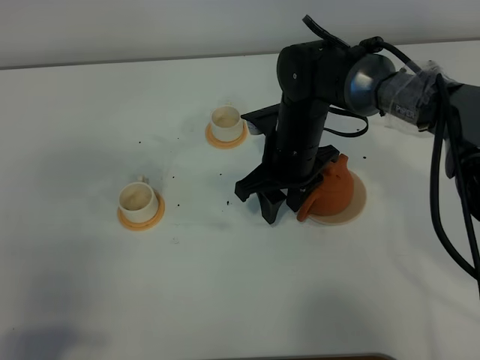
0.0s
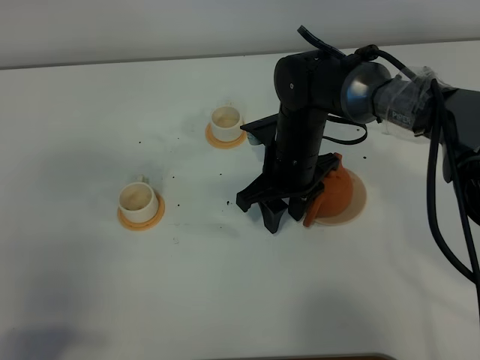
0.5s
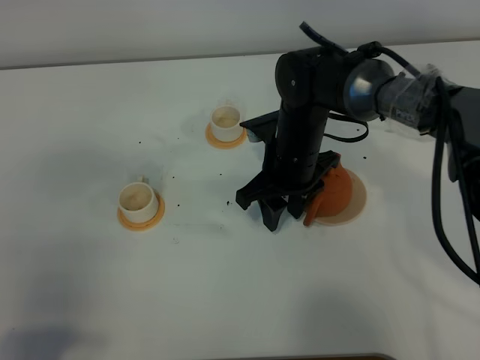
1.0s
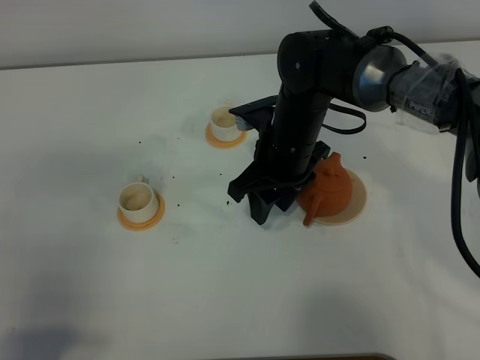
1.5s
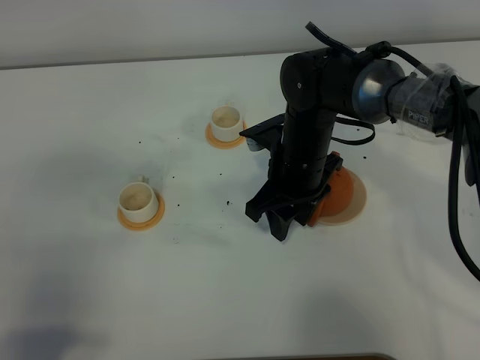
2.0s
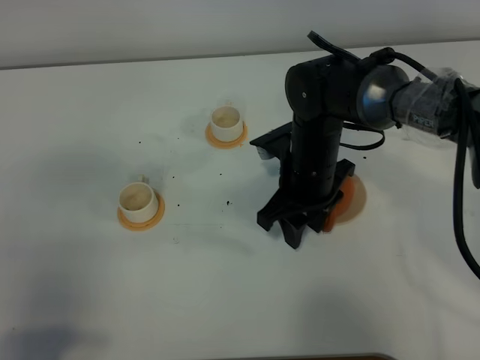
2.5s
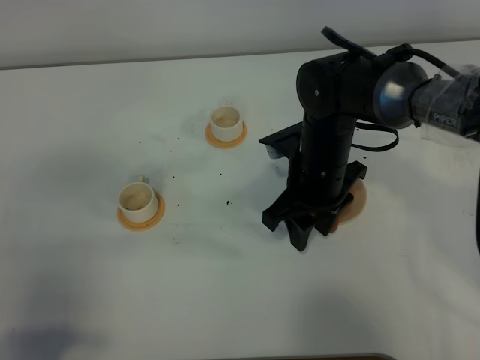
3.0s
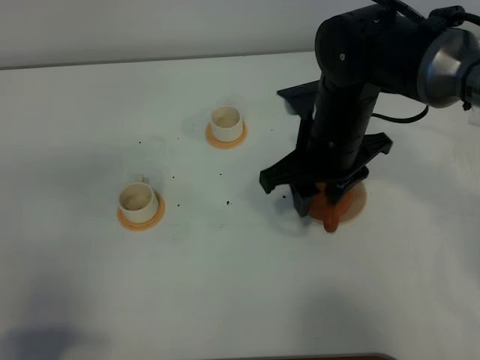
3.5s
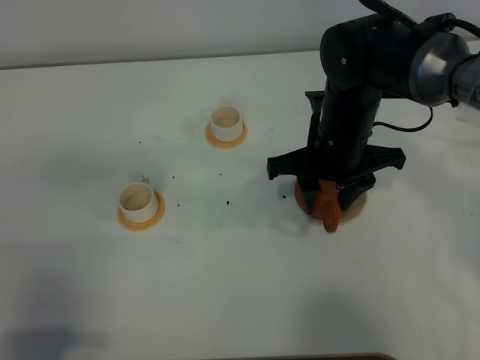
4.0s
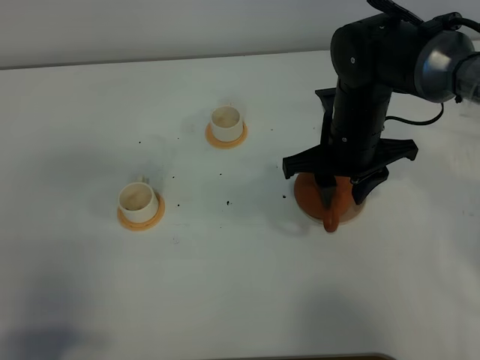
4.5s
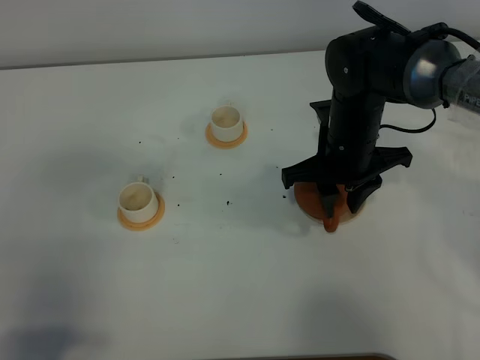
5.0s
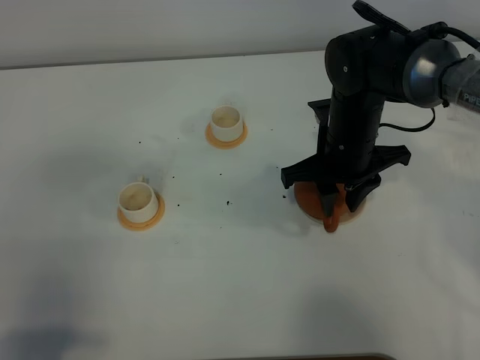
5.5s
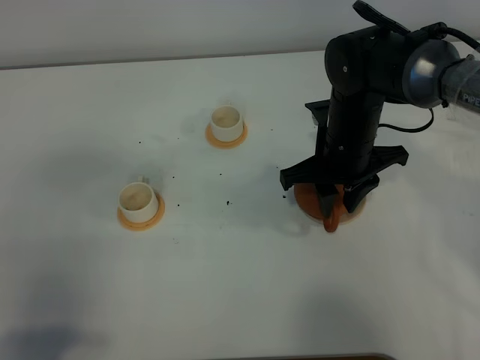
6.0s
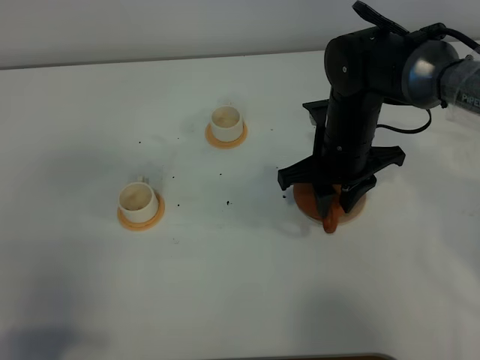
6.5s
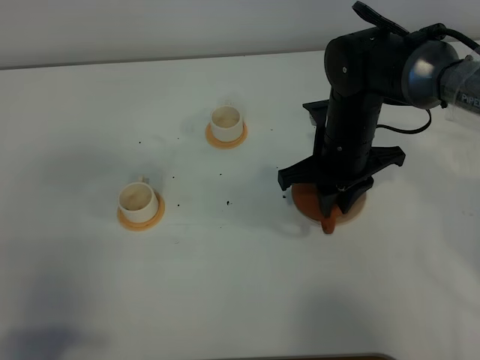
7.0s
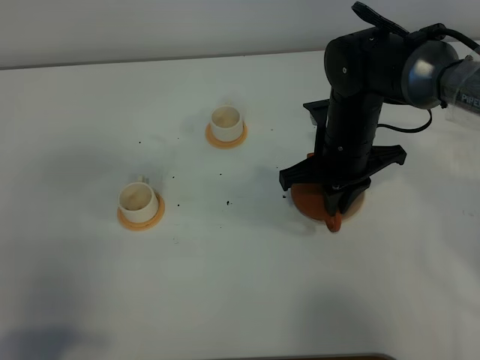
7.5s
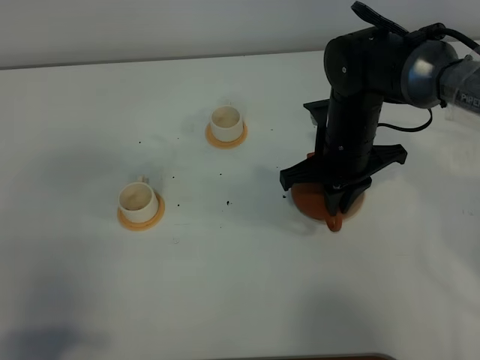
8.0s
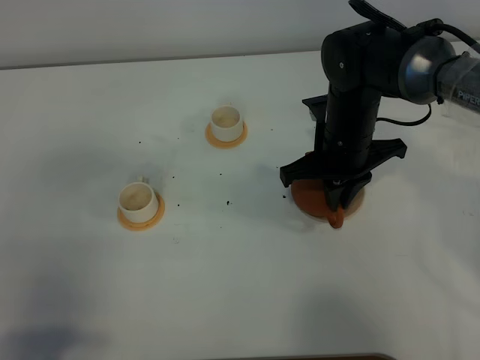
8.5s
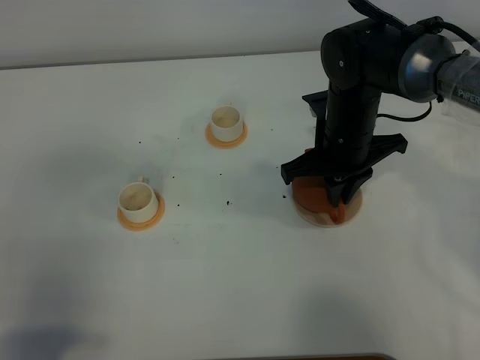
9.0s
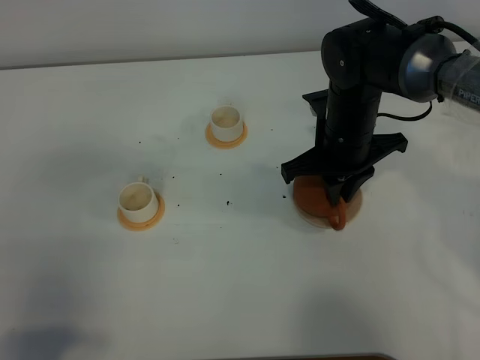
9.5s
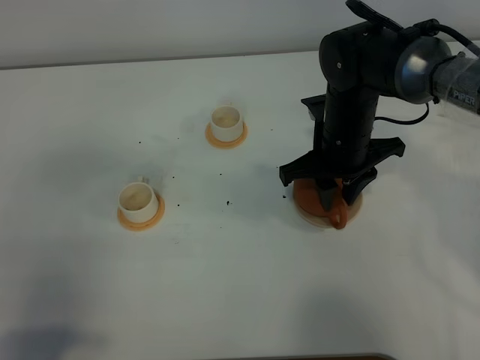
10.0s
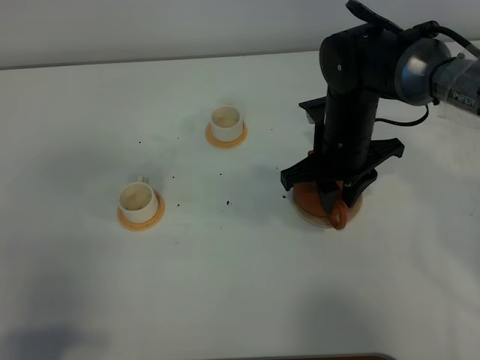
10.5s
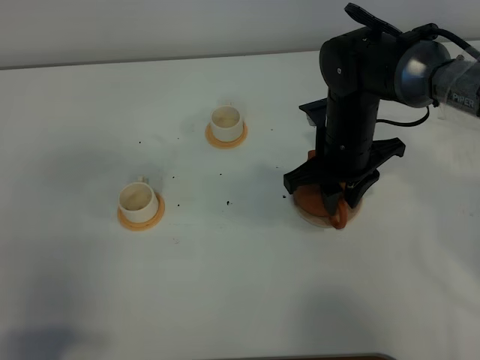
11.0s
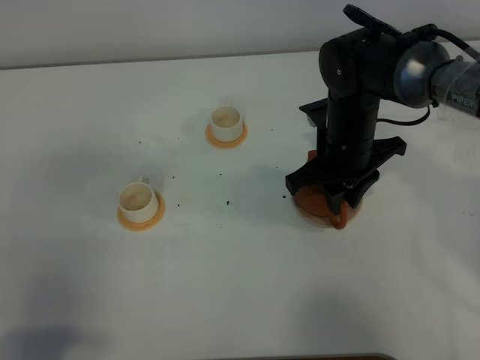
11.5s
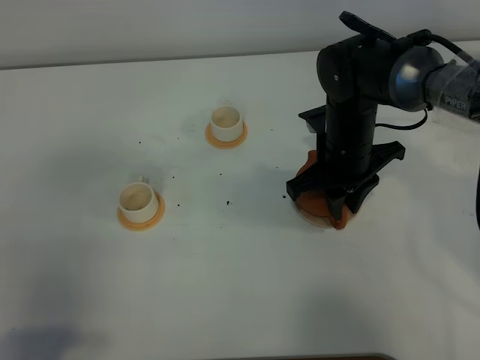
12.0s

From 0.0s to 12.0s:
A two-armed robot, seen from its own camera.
Task of the whole recording: grasp the brown teapot and pour the tea into the two white teacups one by one, put the brown teapot back in its original place.
From 0.0s to 2.0s: The grippers move only a little.
From 2.0s to 4.0s: The right gripper ends up some 5 cm from where it was.
From 4.0s to 6.0s: The grippers move only a little.
From 6.0s to 8.0s: The right gripper closes up.
From 8.0s to 10.0s: The right gripper opens its fingers.
From 10.0s to 12.0s: The grippers make only small movements.

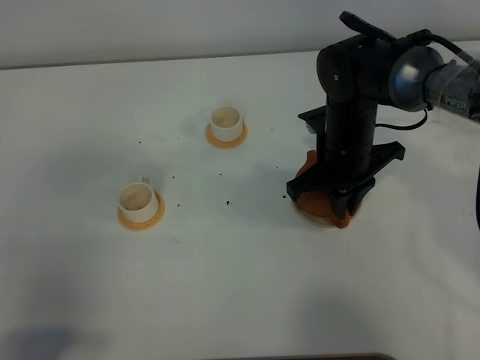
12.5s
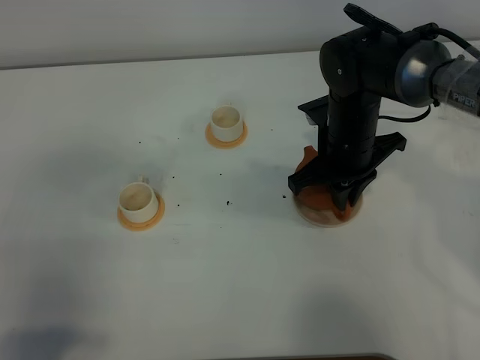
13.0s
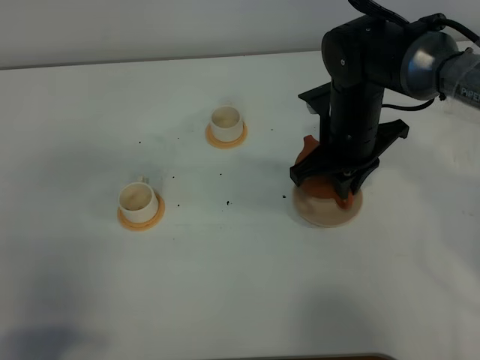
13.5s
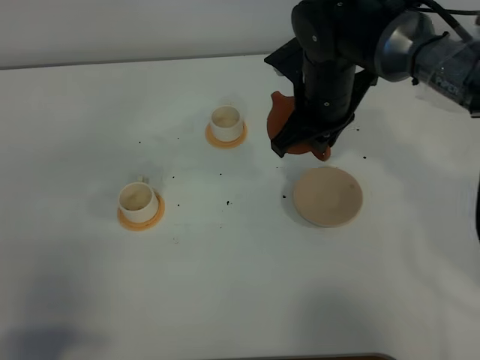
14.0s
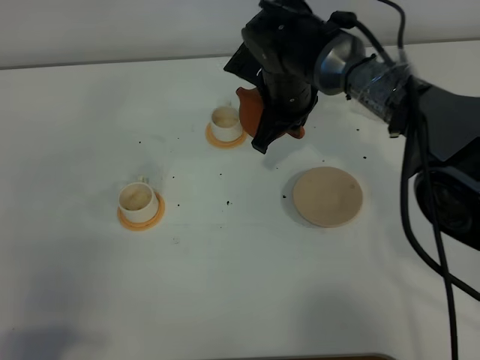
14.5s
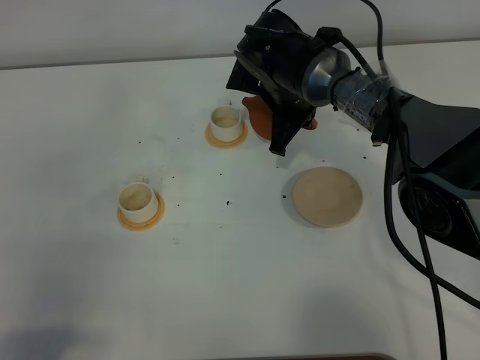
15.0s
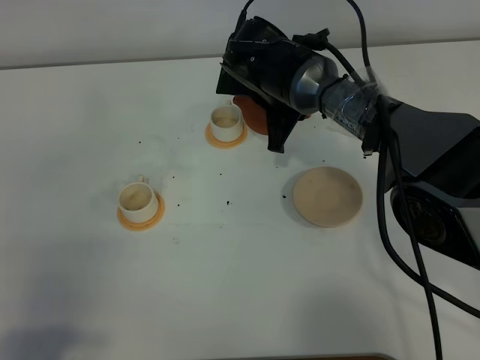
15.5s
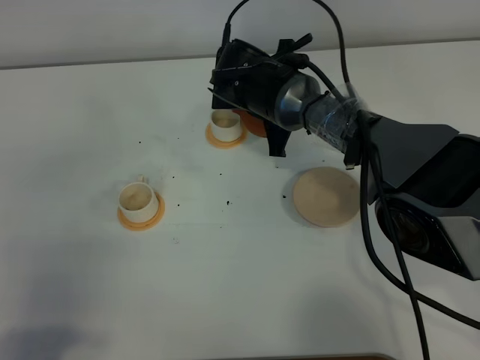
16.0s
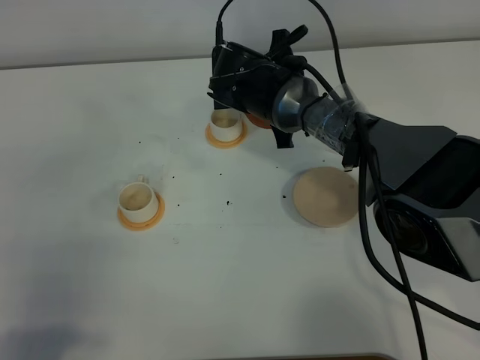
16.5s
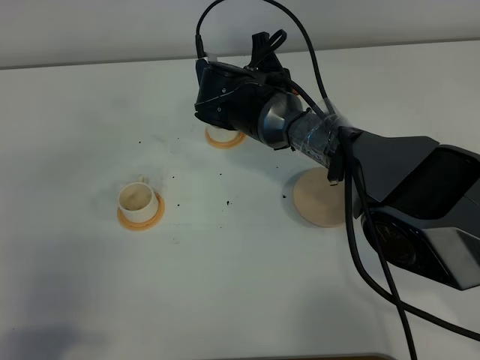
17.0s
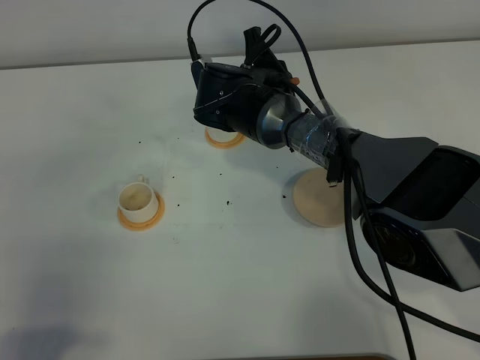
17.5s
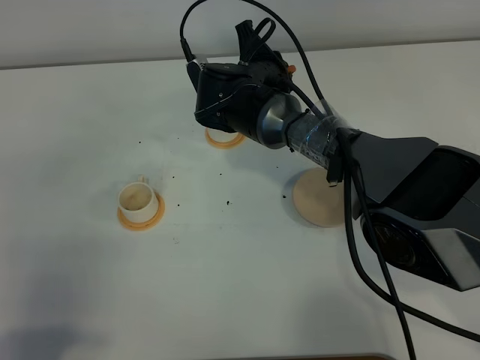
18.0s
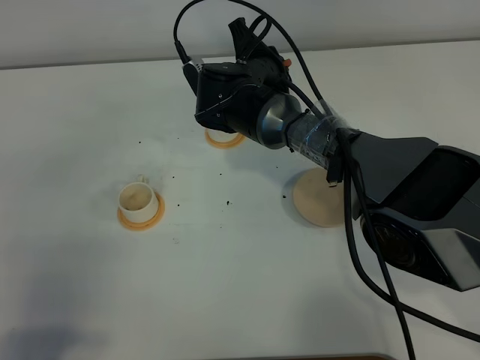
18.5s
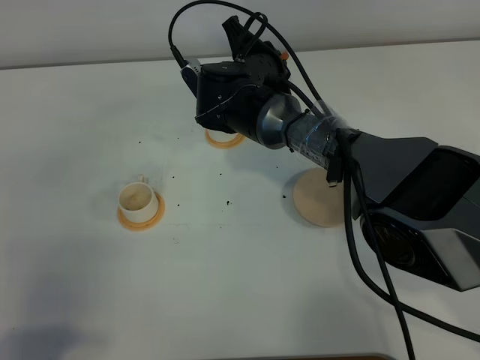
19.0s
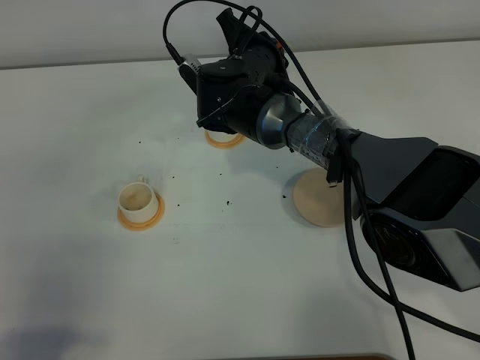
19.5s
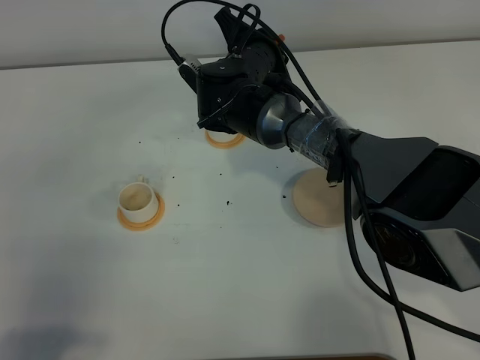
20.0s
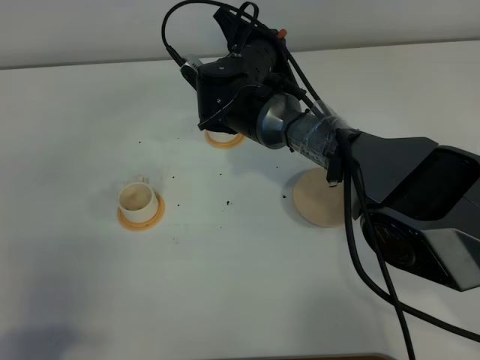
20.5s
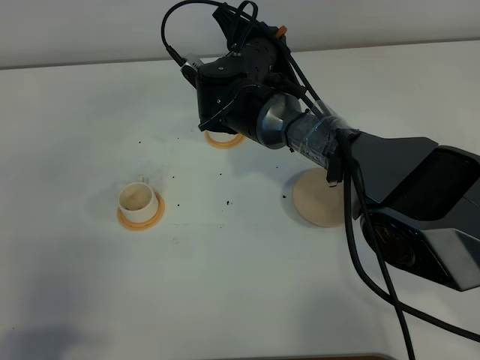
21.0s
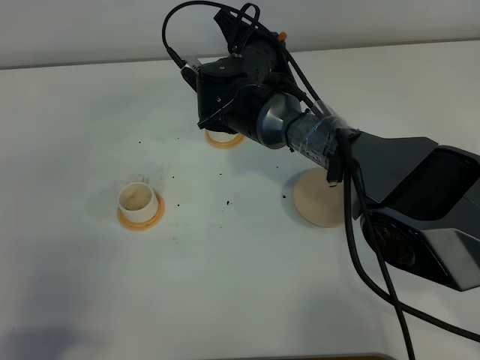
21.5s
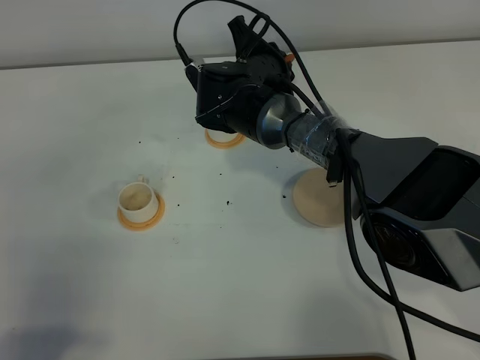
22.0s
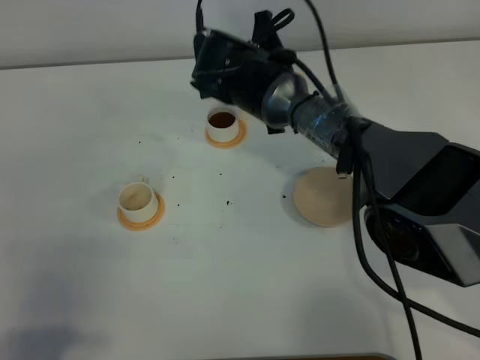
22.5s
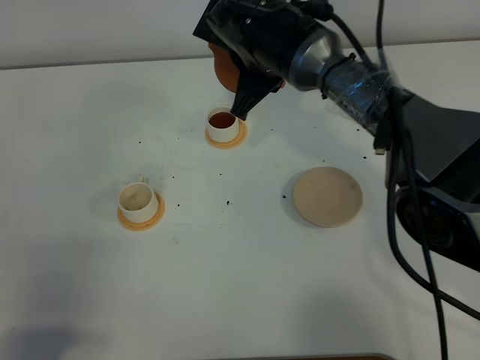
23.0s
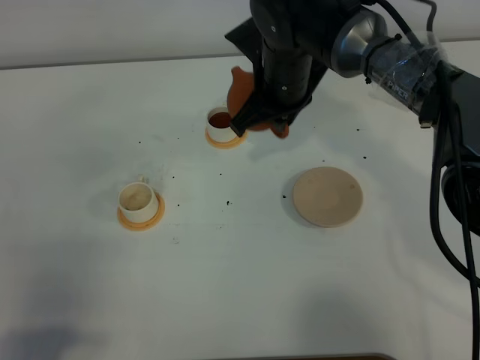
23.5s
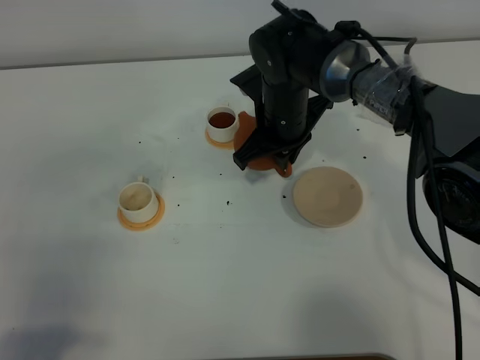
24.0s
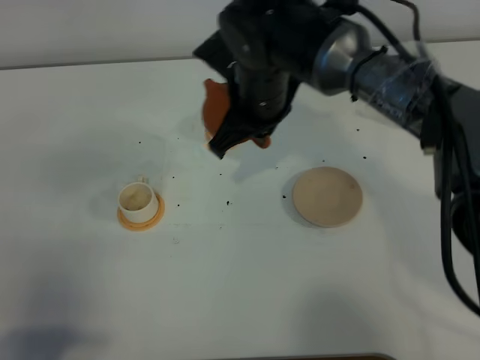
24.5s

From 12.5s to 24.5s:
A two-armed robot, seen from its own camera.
Task of the whole recording: grasp the brown teapot and pour the tea into the two white teacups one by one, put the brown teapot back in its original place.
Step, from 14.0s to 23.0s: Pour tea into the teacup with the right gripper.
From 12.5s to 14.5s: The right gripper is displaced to the left and forward by approximately 10 cm.
From 18.5s to 20.5s: The grippers move only a little.
From 22.5s to 24.5s: The right gripper heads backward, covering approximately 5 cm.

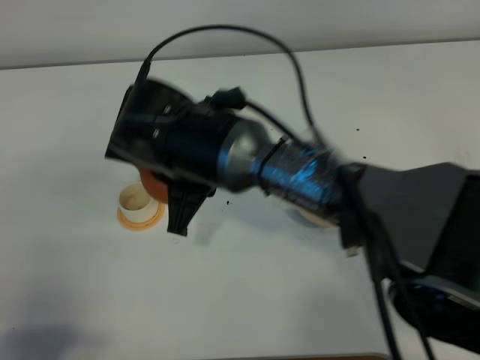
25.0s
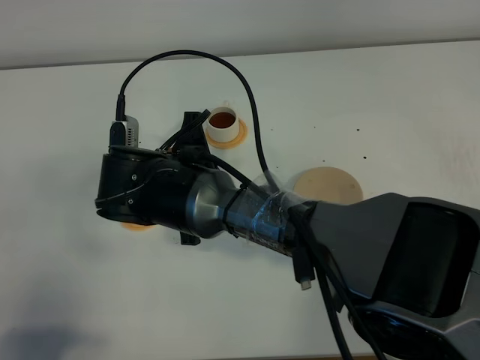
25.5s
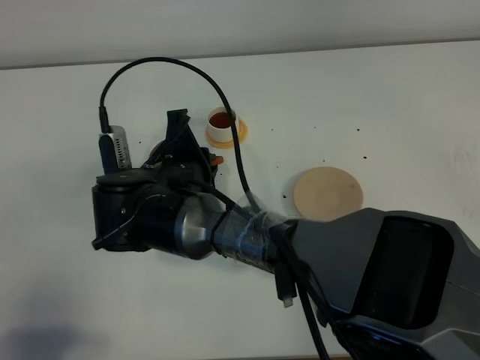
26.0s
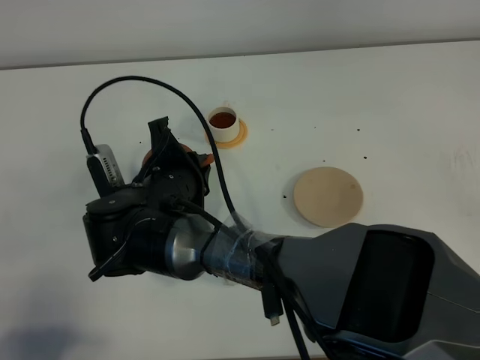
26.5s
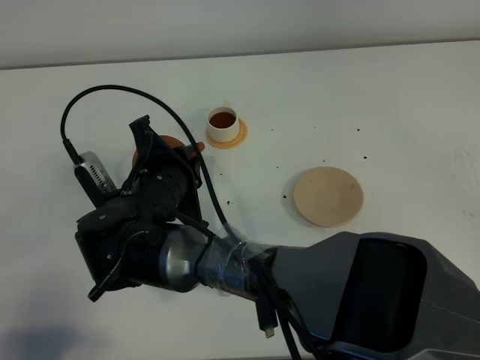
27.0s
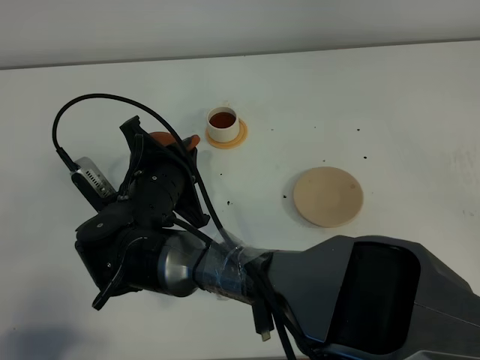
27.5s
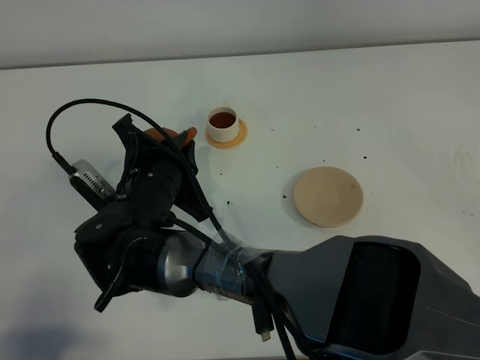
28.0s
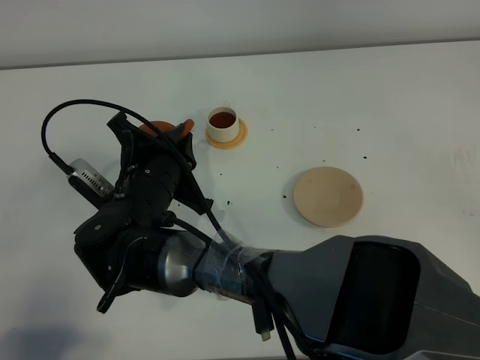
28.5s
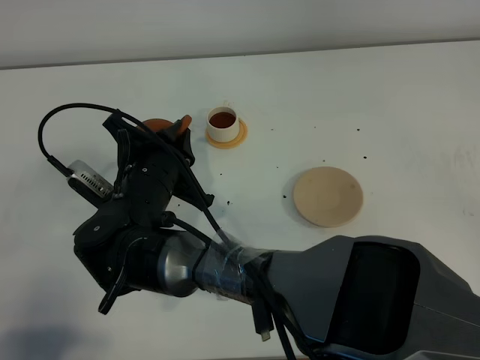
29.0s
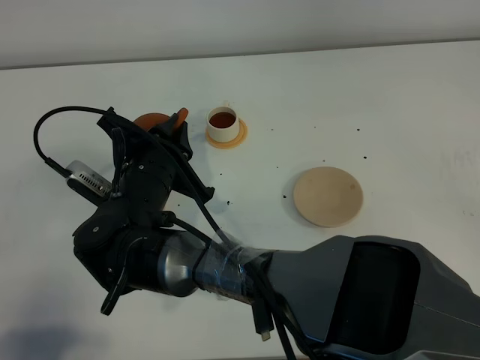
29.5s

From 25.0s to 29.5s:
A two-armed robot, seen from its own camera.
Task of the whole recording: grasp the brown teapot and pour the tea into the two white teacups one by one, put the brown teapot back in its original place.
From 25.0s to 27.0s: The right gripper goes approximately 5 cm downward.
